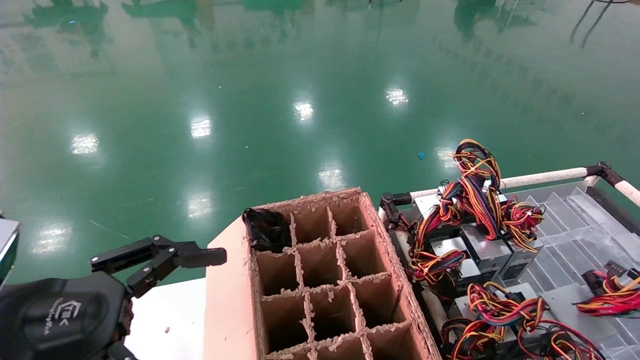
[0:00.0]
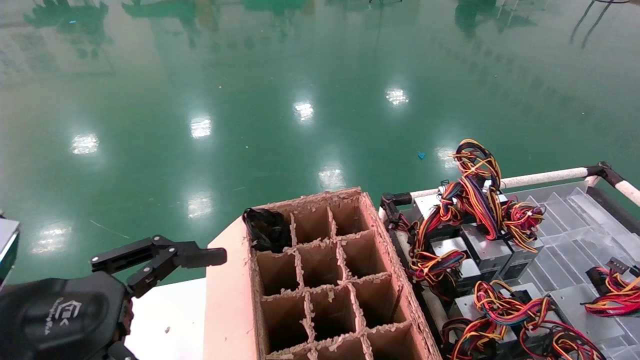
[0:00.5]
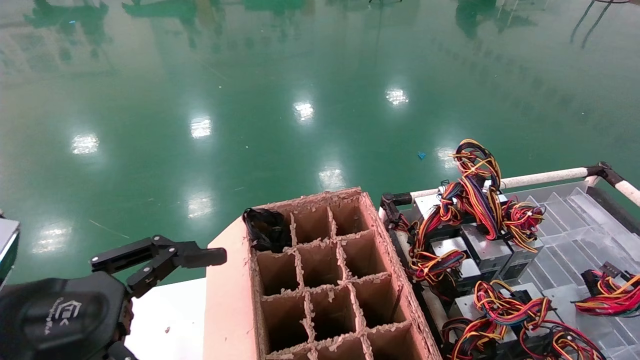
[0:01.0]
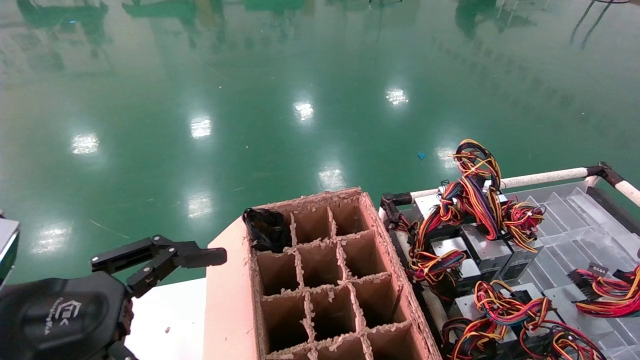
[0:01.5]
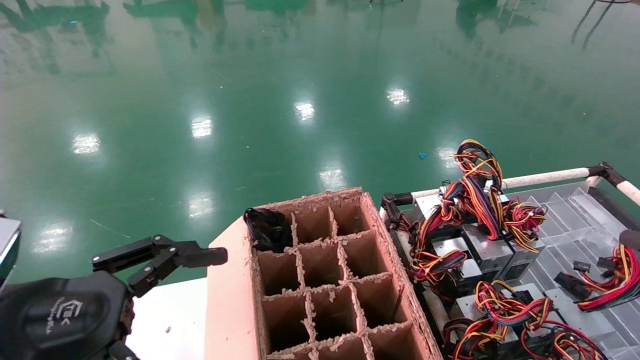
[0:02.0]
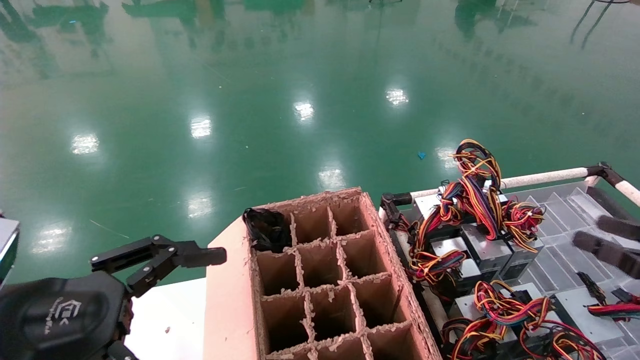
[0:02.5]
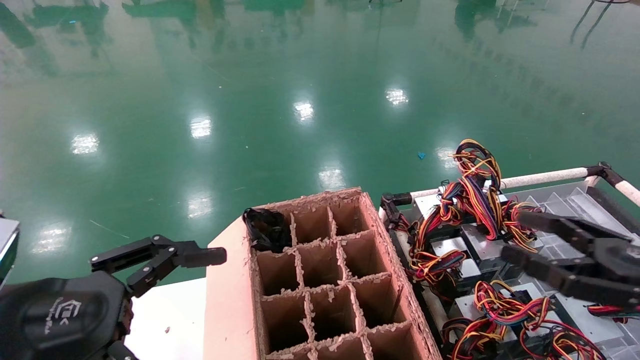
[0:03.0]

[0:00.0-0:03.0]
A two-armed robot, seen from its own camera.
0:00.0 to 0:01.5: The grippers make only small movements.
0:01.5 to 0:03.0: The right gripper shifts about 15 cm to the left, and opens up.
